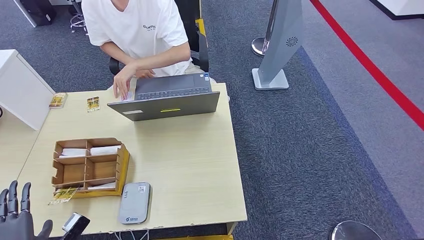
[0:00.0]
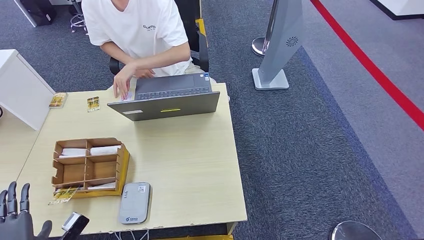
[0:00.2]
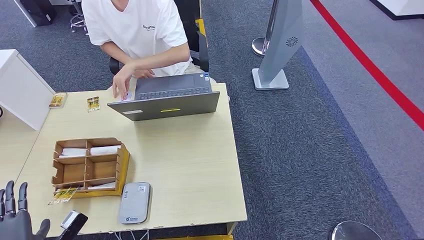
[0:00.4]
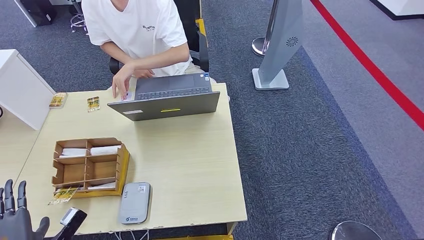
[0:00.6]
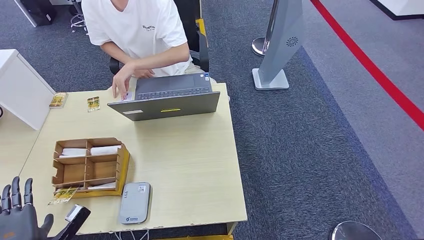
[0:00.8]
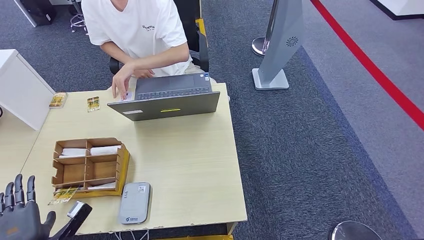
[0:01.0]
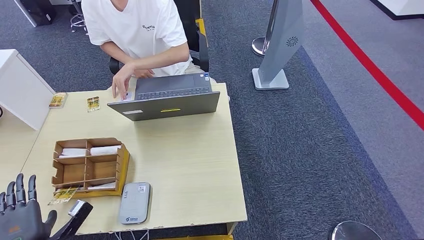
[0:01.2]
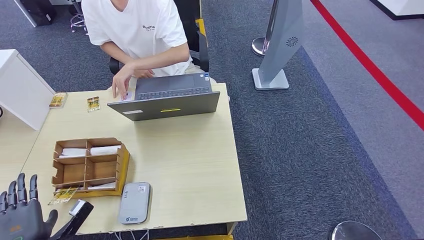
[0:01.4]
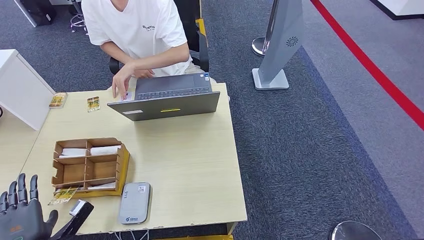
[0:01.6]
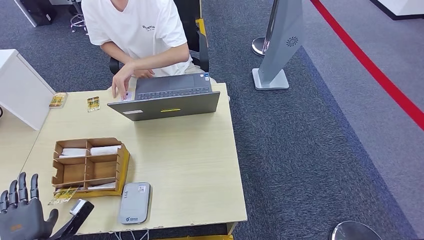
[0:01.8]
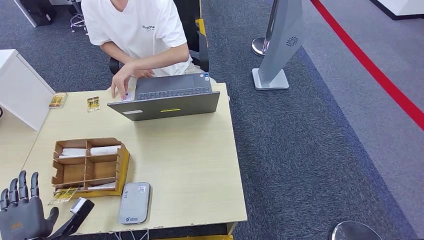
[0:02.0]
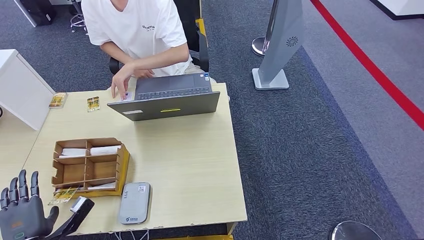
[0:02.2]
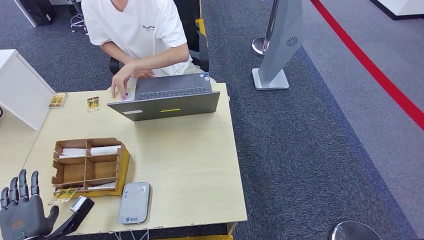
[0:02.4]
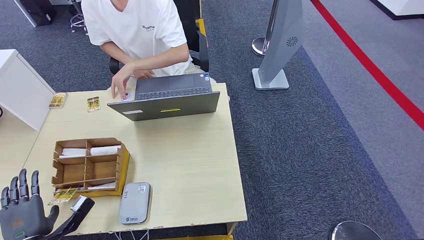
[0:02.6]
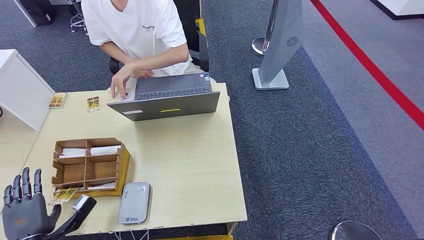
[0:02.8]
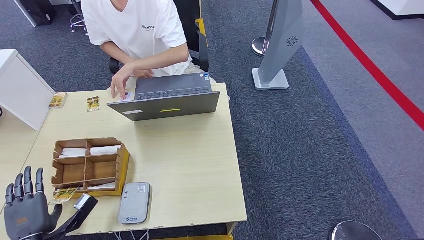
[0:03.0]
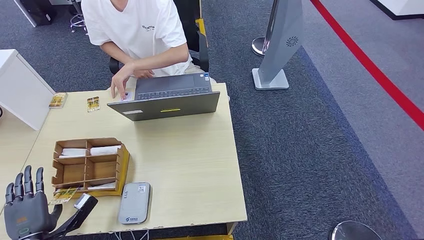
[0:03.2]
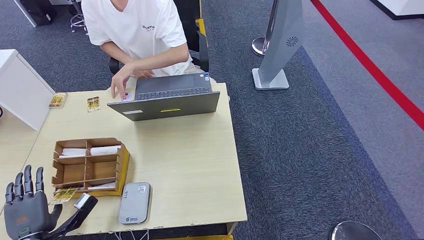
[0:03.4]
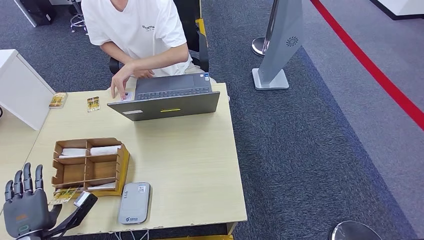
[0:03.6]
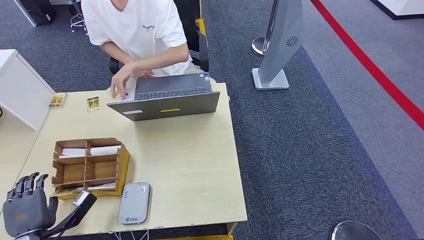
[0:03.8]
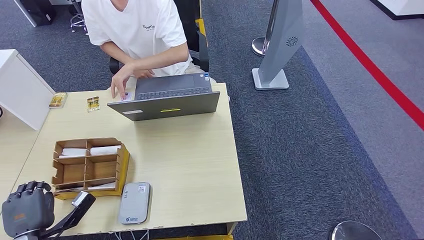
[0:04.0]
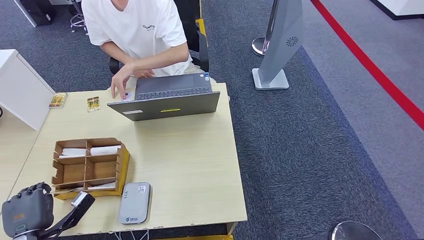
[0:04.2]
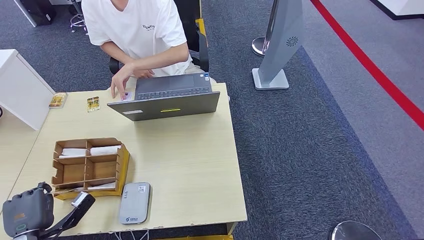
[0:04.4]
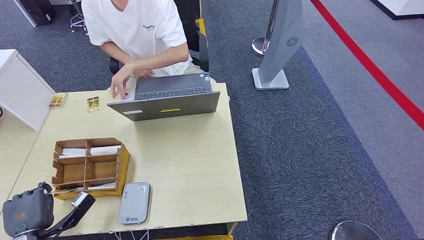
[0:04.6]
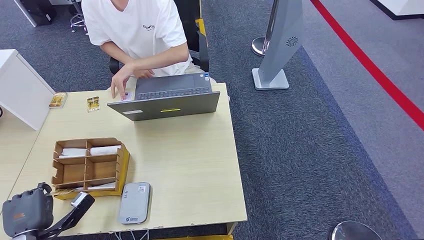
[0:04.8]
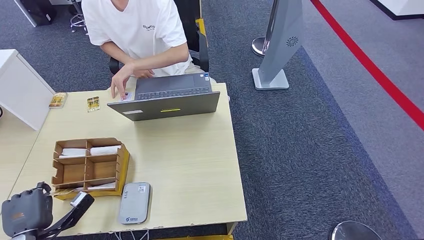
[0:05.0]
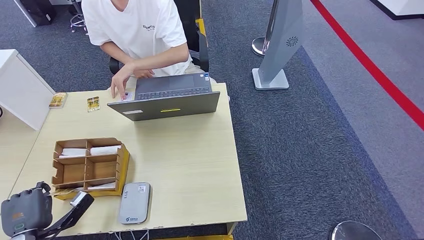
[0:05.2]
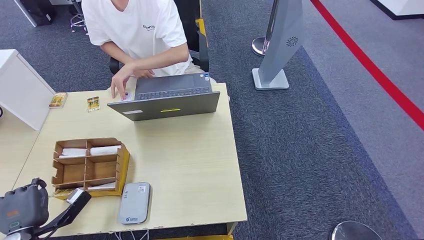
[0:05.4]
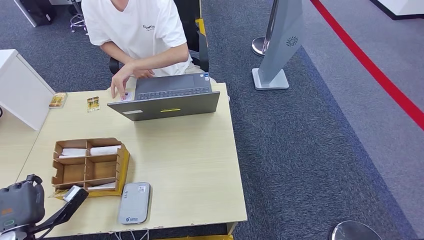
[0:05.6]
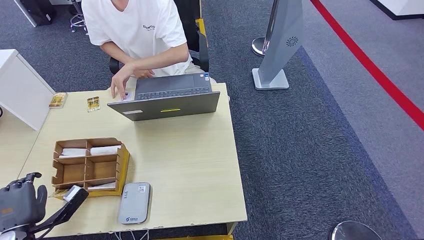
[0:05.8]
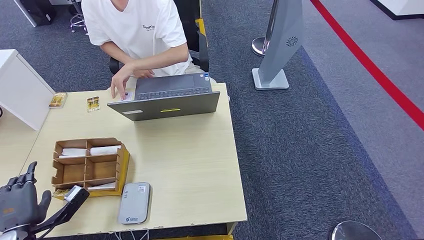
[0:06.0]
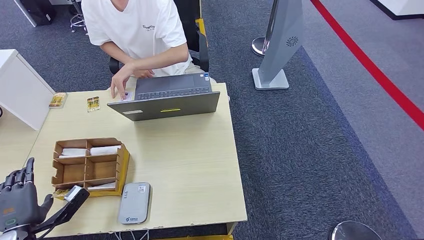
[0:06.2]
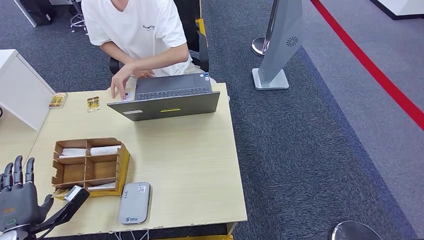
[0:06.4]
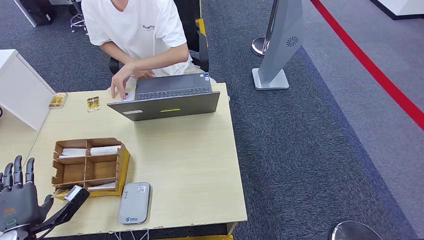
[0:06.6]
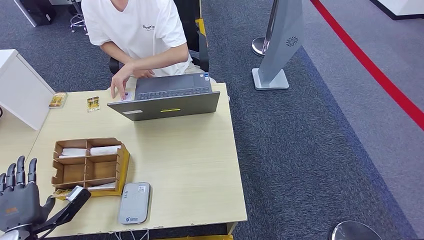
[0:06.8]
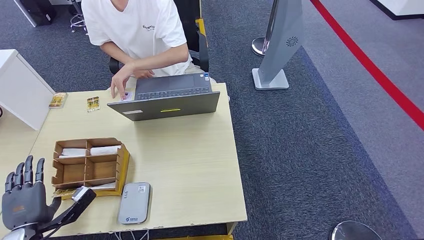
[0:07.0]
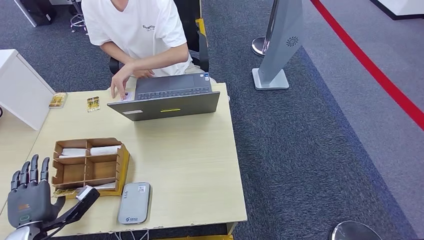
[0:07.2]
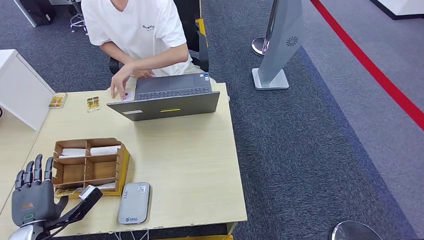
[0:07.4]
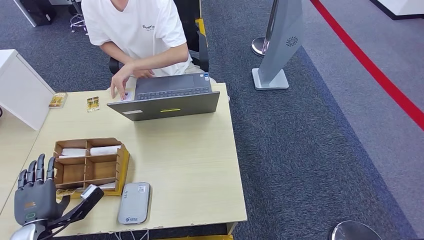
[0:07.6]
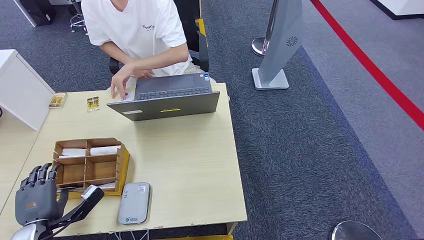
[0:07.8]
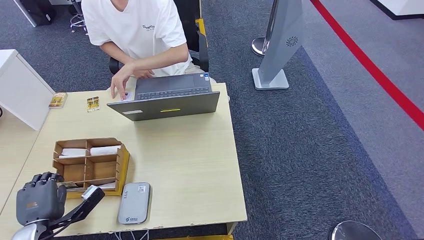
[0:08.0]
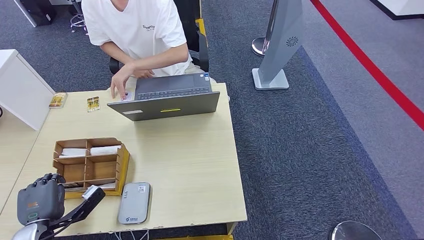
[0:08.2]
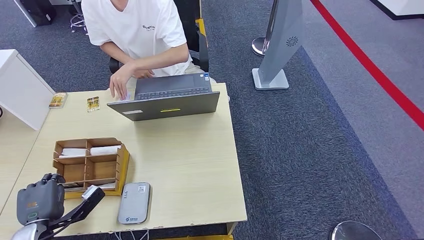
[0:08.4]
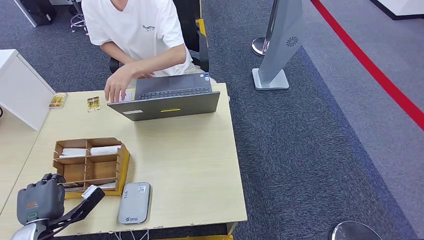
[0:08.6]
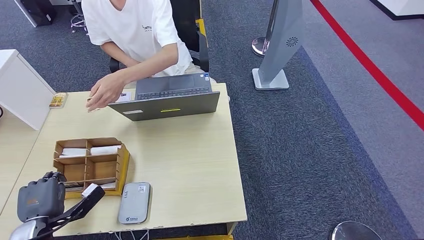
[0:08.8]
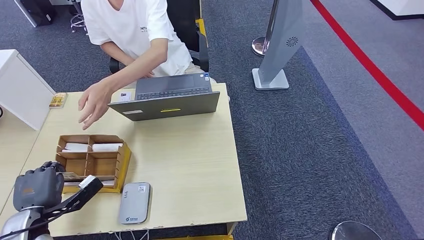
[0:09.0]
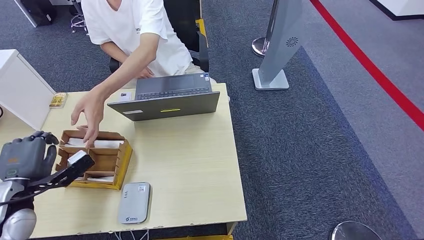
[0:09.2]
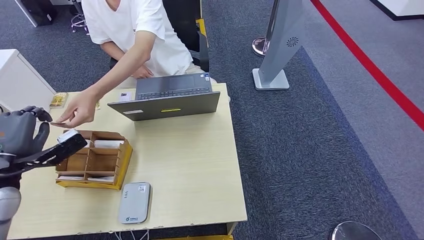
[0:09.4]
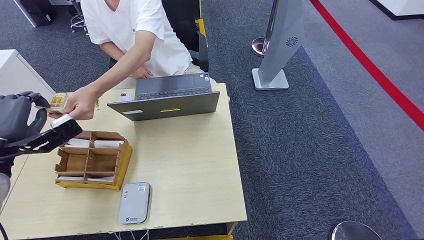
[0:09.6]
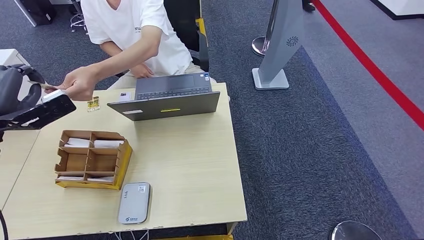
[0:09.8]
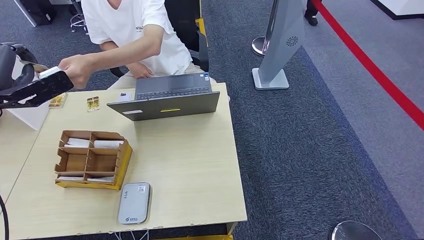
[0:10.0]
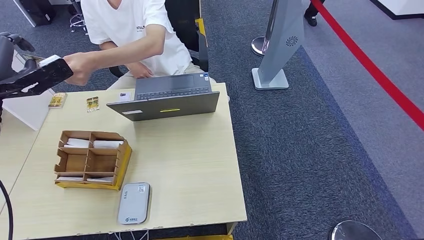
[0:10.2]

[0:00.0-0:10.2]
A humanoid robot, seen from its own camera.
Step, 0:00.0 to 0:08.4: Pick up the room key from the key card box.
Step, 0:08.8 to 0:10.2: Hand the room key to the person.
0:00.0 to 0:01.4: The hands make only small movements.
0:01.4 to 0:03.0: The hands move only a little.
0:03.0 to 0:04.4: Both hands stay about where they are.
0:04.4 to 0:08.8: The hands make only small movements.
0:08.8 to 0:10.2: The left hand heads upward and forward, covering some 35 cm.
